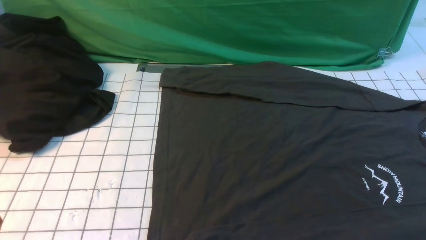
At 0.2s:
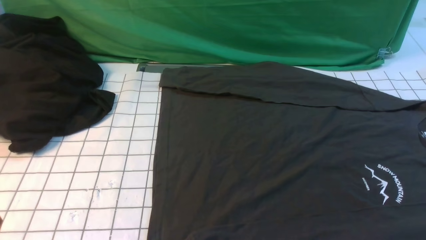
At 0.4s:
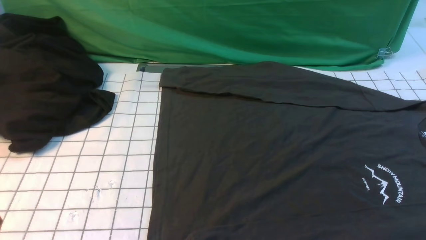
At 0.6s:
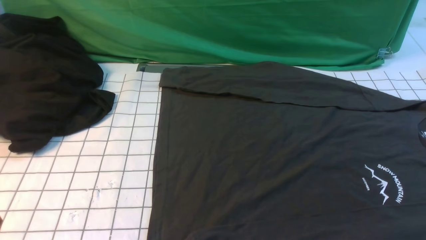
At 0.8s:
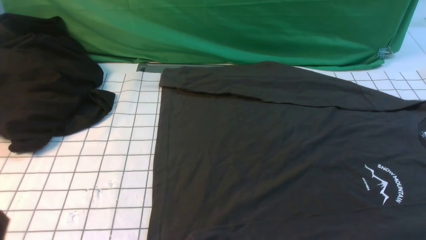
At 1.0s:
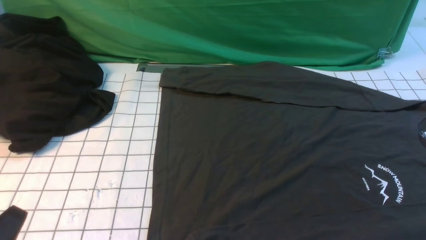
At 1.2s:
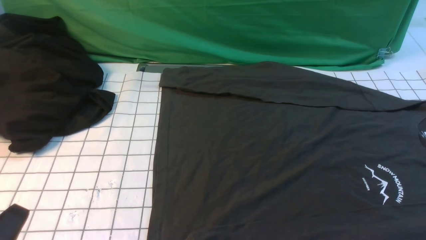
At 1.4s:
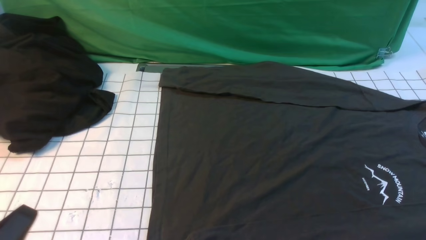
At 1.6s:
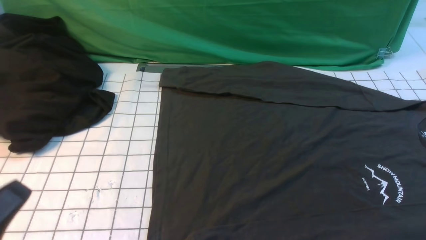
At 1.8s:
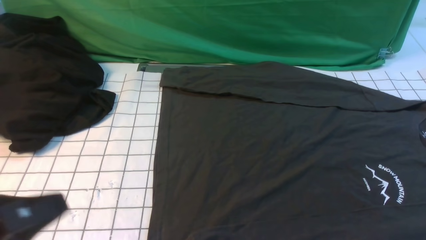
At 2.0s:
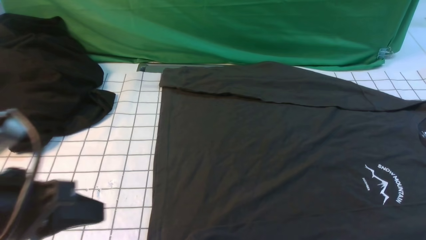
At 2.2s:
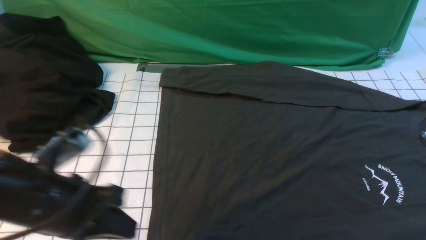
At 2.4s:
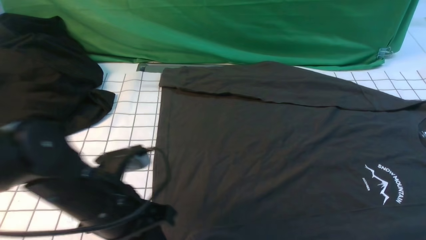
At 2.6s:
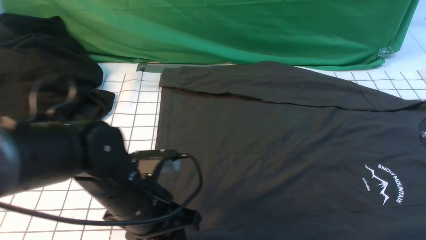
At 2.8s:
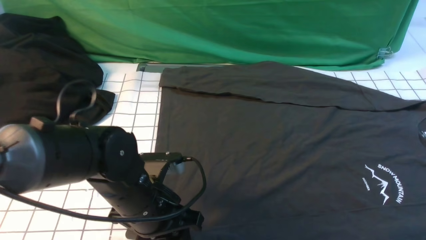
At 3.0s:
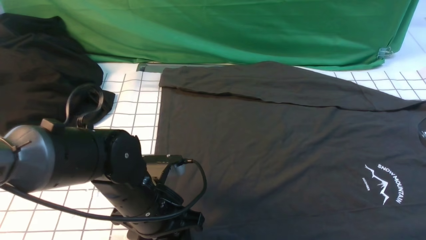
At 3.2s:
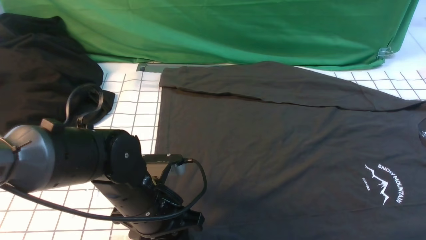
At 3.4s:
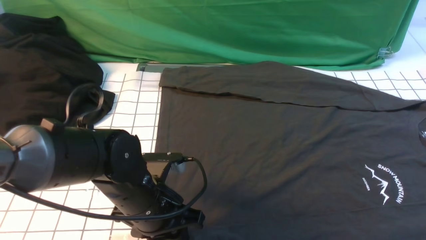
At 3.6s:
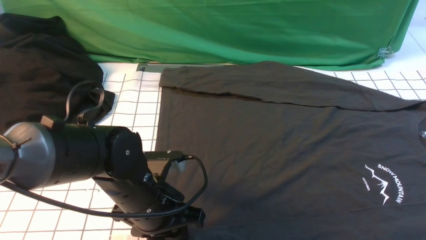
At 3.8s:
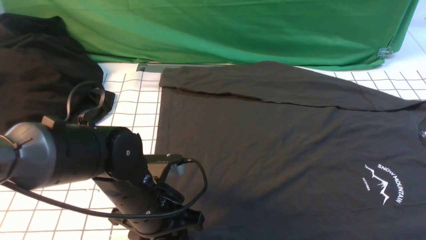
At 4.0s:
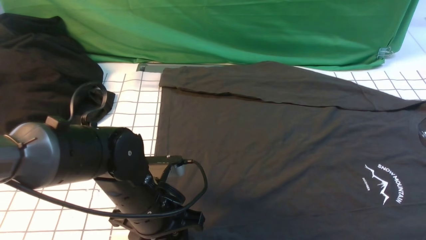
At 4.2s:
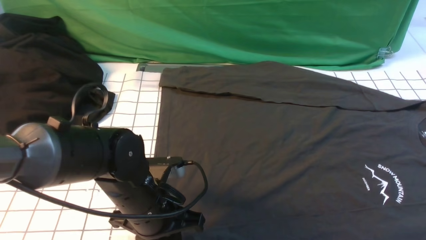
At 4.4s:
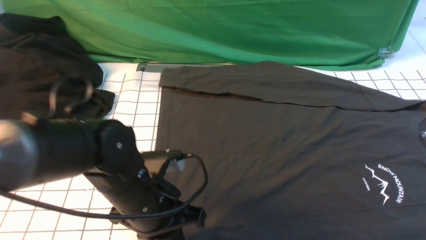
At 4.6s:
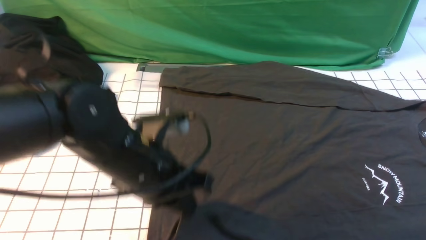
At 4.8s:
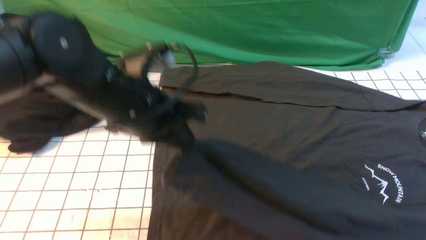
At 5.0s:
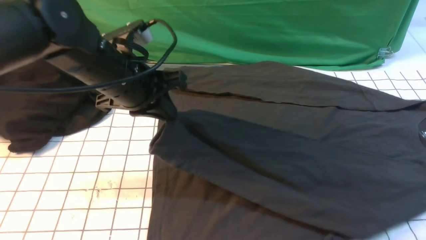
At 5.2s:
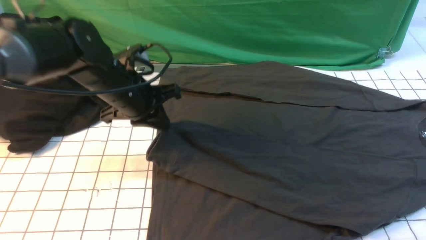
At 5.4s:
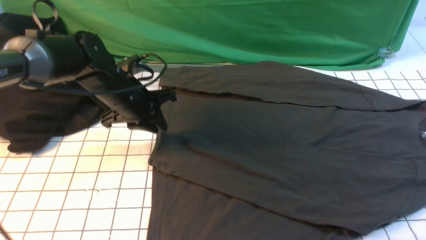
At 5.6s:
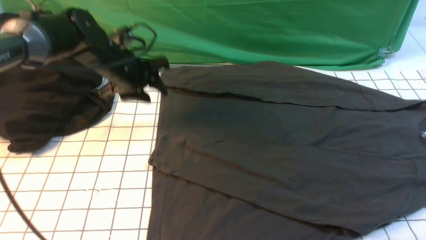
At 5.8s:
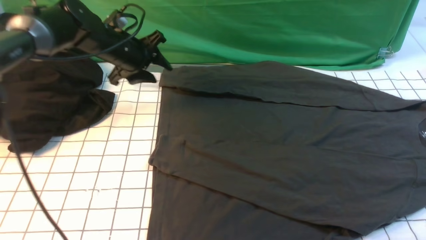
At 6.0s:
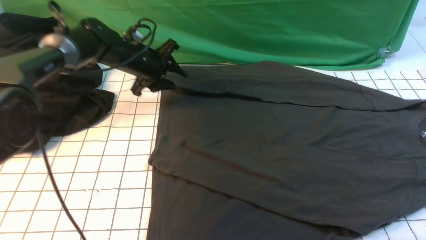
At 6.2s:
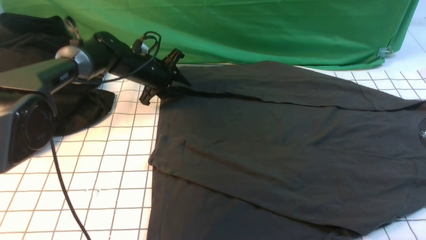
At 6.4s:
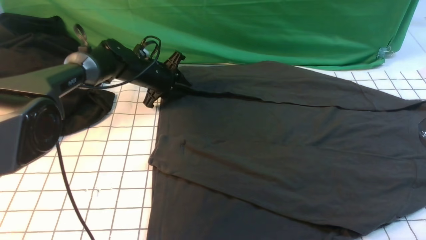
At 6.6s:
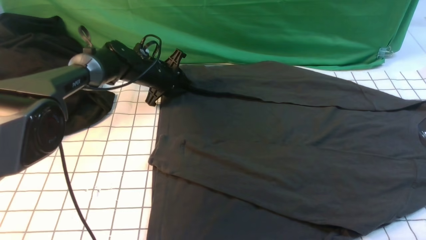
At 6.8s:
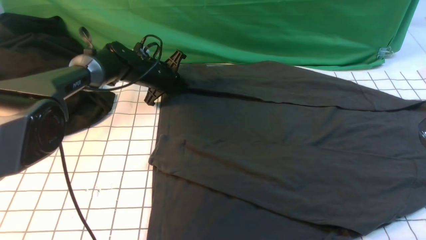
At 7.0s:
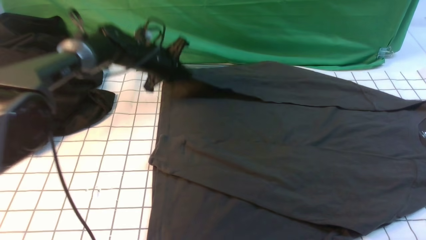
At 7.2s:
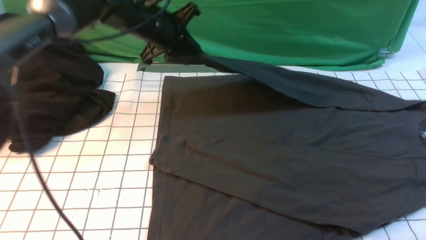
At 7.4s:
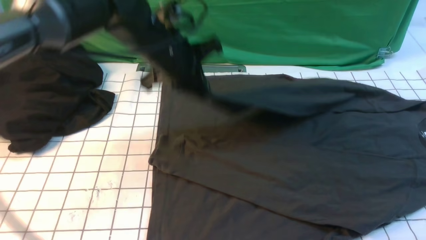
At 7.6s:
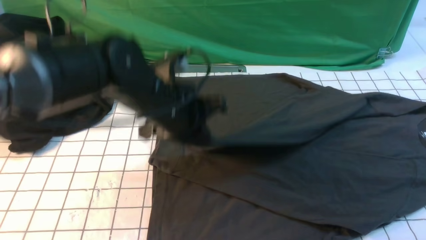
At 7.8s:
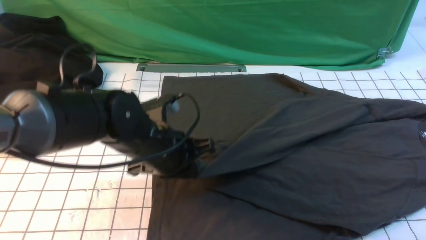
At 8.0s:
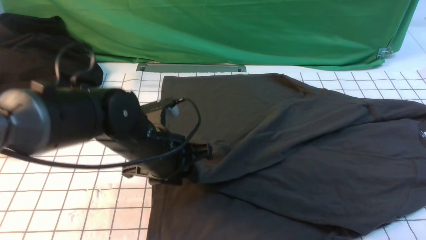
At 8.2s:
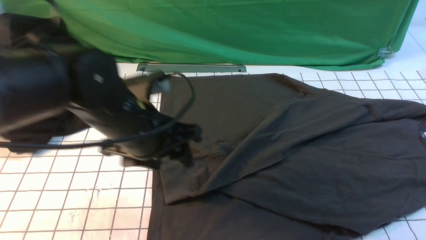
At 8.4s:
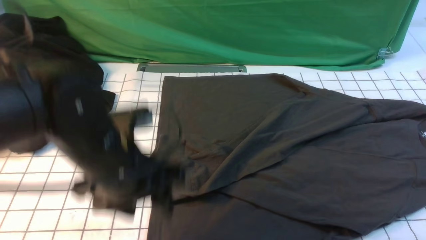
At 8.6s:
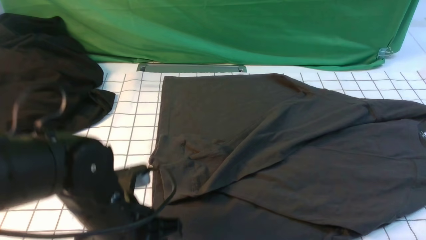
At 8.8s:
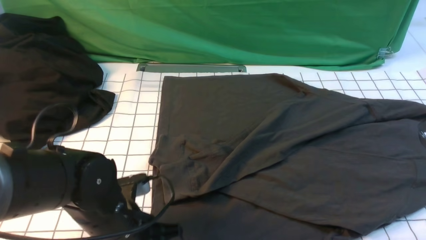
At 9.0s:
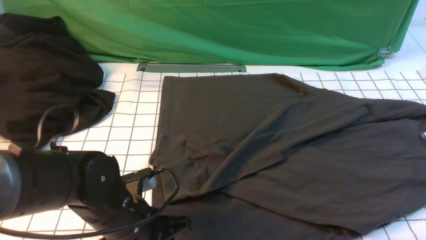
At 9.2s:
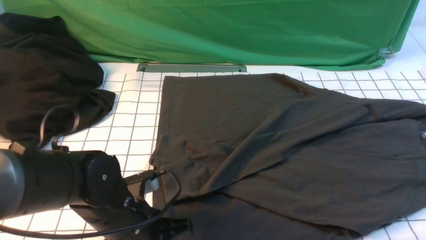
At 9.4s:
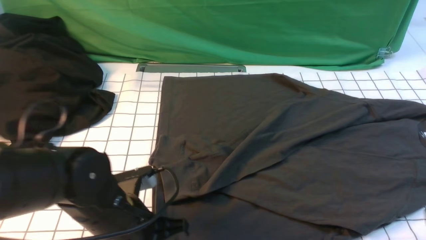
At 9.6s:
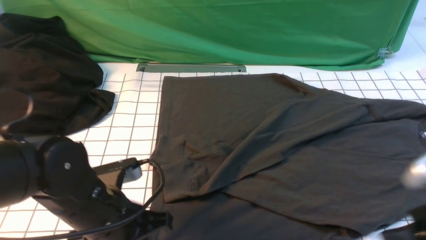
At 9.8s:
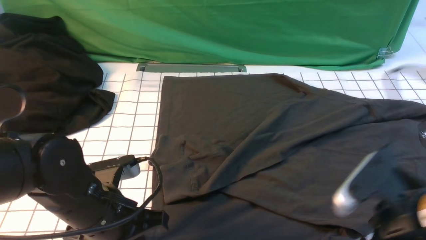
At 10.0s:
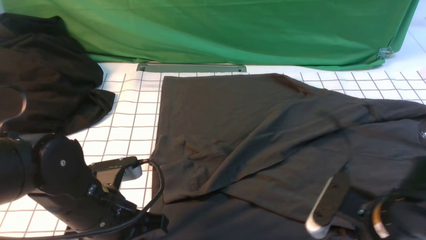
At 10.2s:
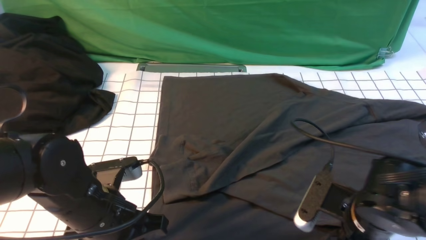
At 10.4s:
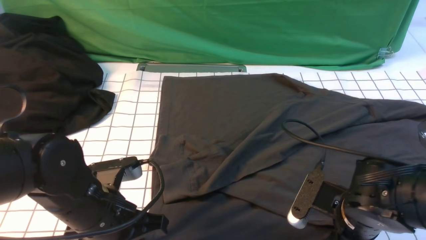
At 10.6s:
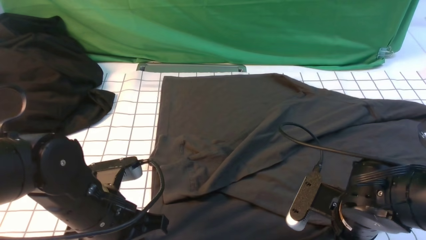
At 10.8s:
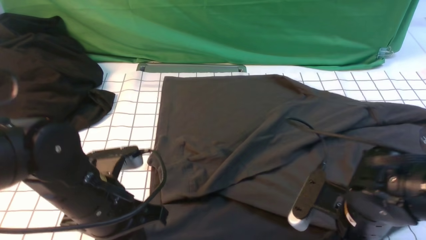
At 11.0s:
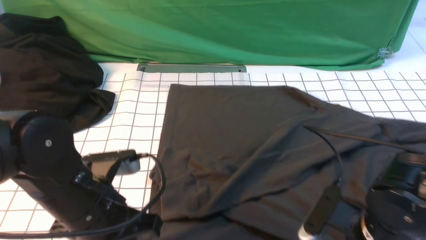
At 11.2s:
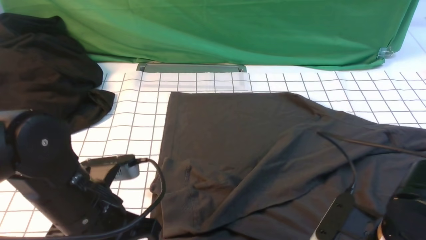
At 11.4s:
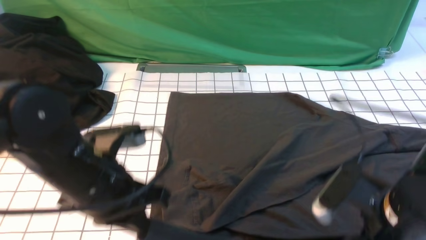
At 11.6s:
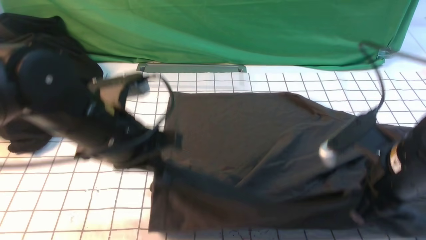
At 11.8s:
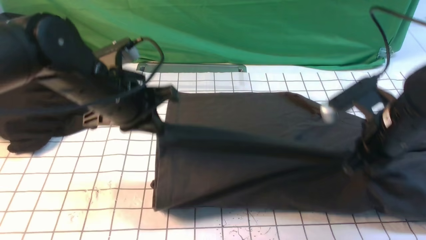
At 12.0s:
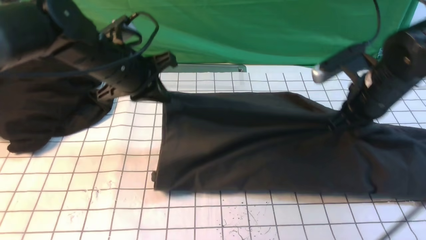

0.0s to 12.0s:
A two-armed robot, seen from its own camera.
Step, 0.0s to 4.2s: use the left arm to clamp the cuff closest to it.
Step, 4.4s to 5.2s: use the left arm to drag and place the cuff at the centered position on the left edge of the fabric.
Step, 5.6s to 6.6s: use the left arm to clamp the cuff farthest from it.
Step, 7.0s to 8.0s: use the left arm to drag and drop the cuff onto the cuff closest to the left arm.
Step, 8.2s to 10.4s: use both arms simultaneously to clamp the lower edge of the clothing fabric.
0.0s to 1.6s: The left gripper shifts approximately 5 cm upward.
1.6s to 3.0s: The right gripper travels upward and forward by some 10 cm; the left gripper moves forward, to the right and downward, some 25 cm, and opens its fingers.
3.0s to 4.4s: The left gripper closes its fingers.
4.4s to 6.0s: The left gripper goes about 30 cm forward, and opens.
6.0s to 7.6s: The left gripper shifts about 20 cm backward and to the right, and closes up.
7.6s to 9.0s: The left gripper goes roughly 15 cm backward and downward, and opens its fingers.
9.0s to 10.4s: The right gripper heads downward, to the left and forward, covering approximately 20 cm. The left gripper closes.
10.4s to 12.0s: Both grippers travel together forward and upward, about 20 cm. The right gripper closes.

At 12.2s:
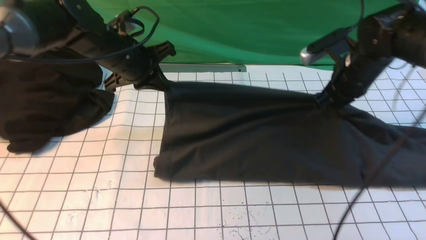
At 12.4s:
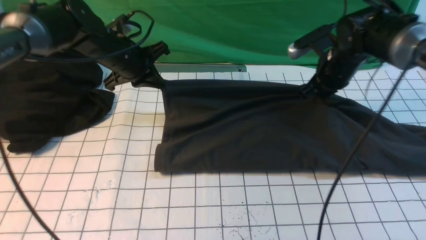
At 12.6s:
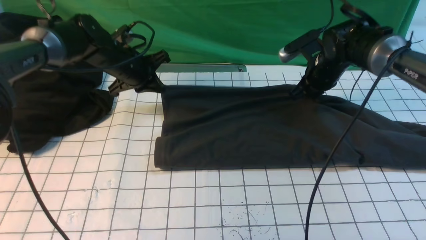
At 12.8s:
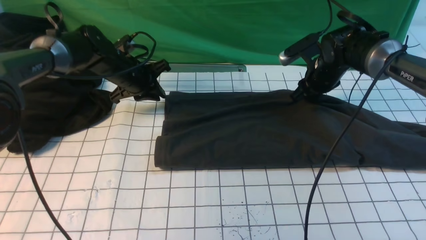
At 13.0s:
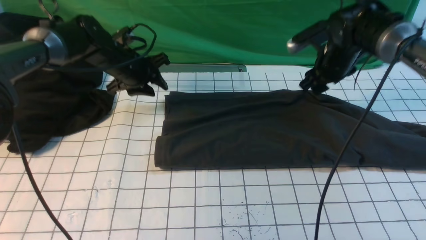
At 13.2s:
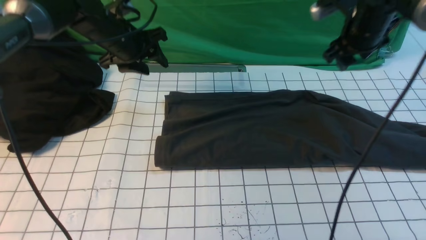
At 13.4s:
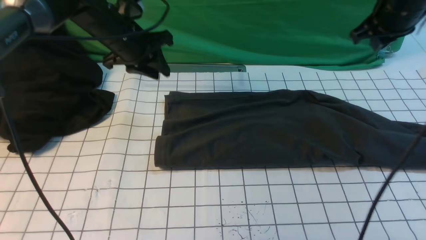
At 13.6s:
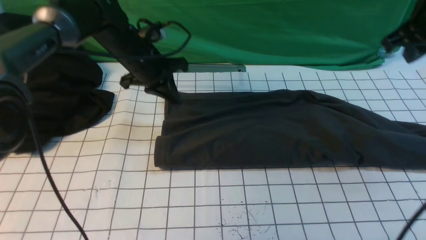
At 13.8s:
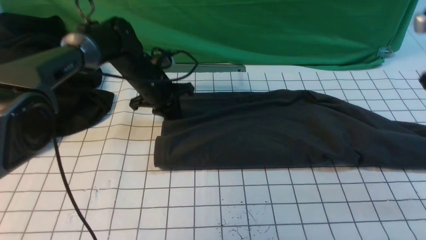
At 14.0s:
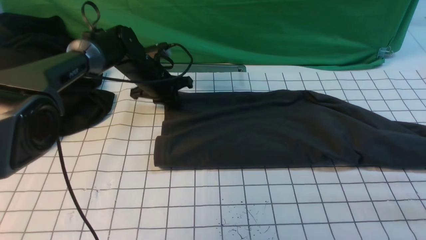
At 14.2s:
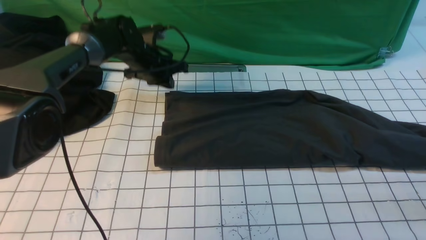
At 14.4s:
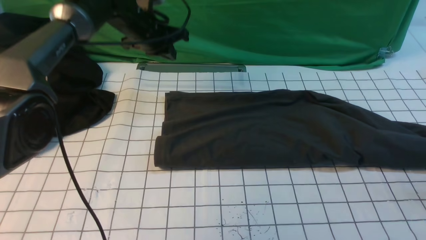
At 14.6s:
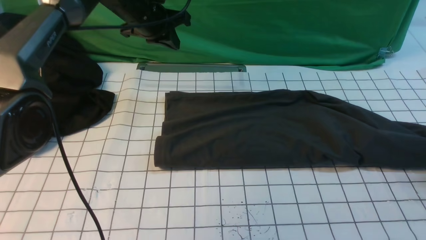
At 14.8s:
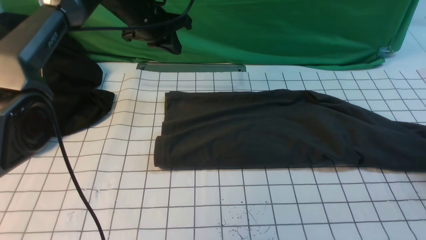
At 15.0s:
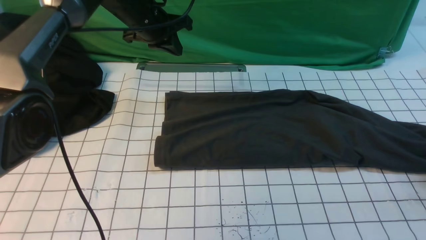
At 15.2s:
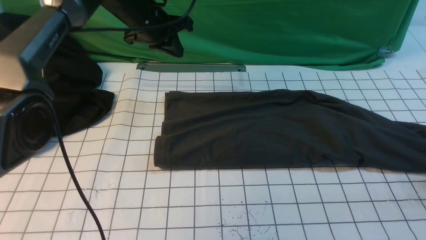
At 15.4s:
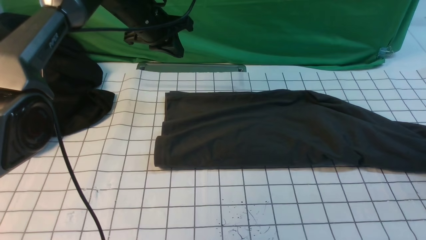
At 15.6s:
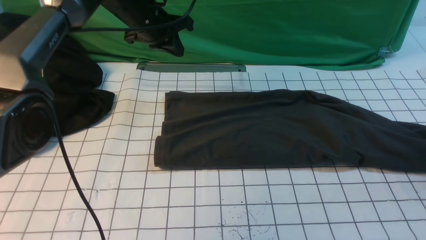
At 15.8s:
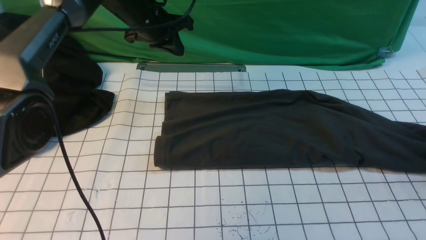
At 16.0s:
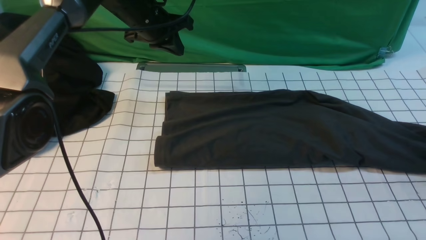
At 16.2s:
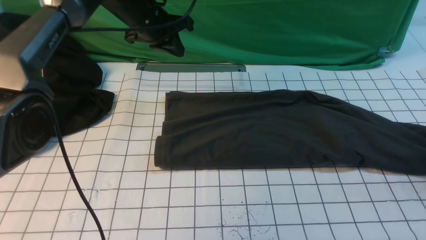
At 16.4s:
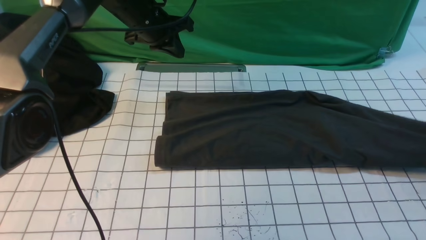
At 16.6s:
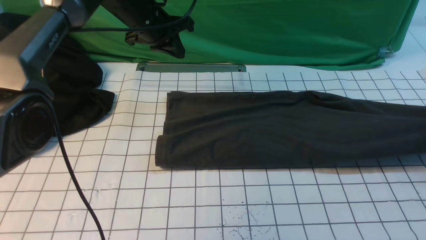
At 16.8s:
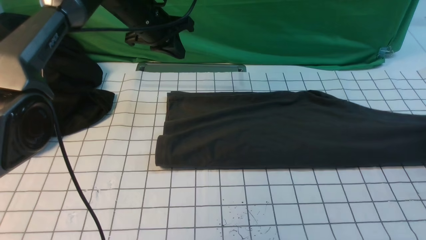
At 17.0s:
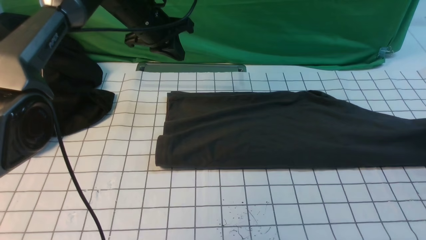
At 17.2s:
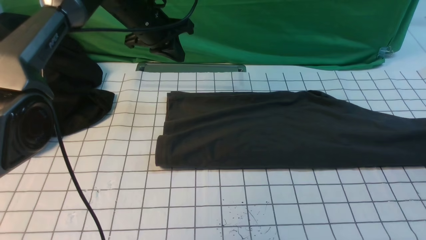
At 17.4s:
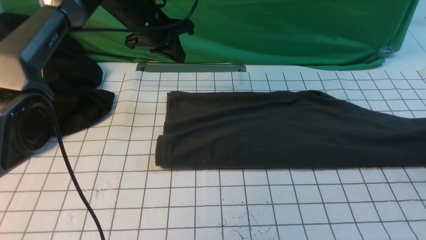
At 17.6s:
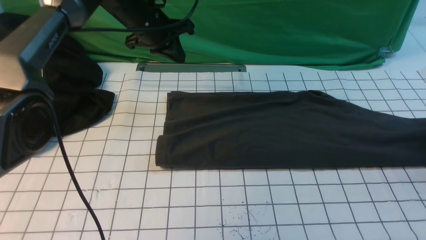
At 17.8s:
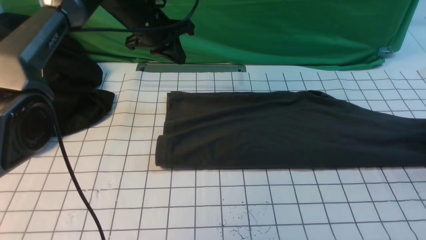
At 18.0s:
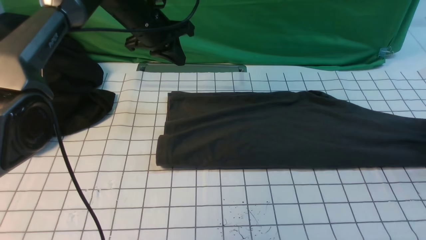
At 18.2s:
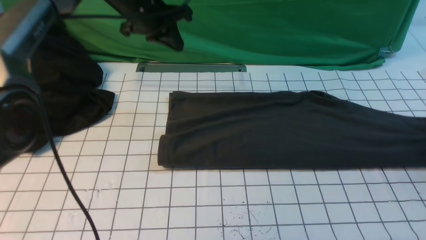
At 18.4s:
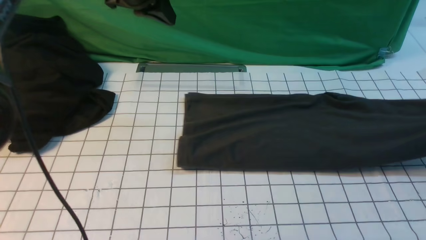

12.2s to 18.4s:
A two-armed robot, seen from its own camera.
Step, 13.0s to 18.0s: use the right arm to clamp the right edge of the fabric.
12.2s to 13.8s: The right gripper is displaced to the right, upward and backward by about 15 cm, and opens and closes again. The left gripper goes up and down, approximately 5 cm each way, reversing 2 times, and opens and closes again.
13.8s to 15.4s: The right gripper travels to the right and downward by some 20 cm, and opens; the left gripper goes approximately 10 cm upward.
15.4s to 16.8s: The right gripper closes, then reopens.
16.8s to 18.4s: The grippers both shift upward by roughly 5 cm. The right gripper closes its fingers.
